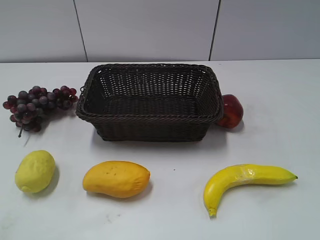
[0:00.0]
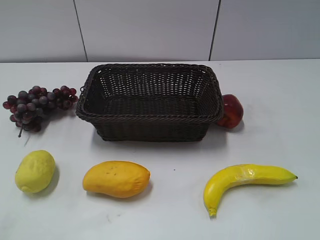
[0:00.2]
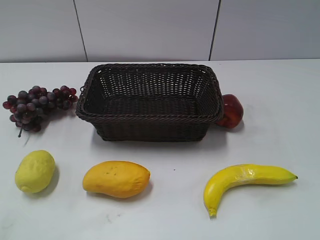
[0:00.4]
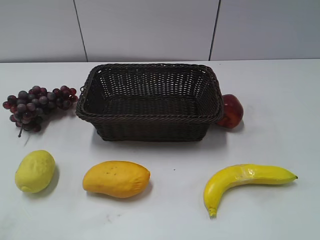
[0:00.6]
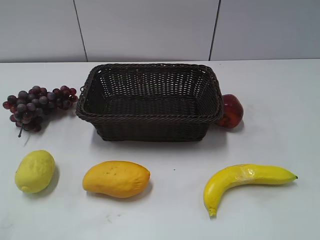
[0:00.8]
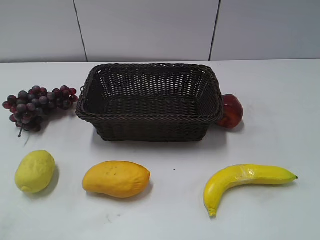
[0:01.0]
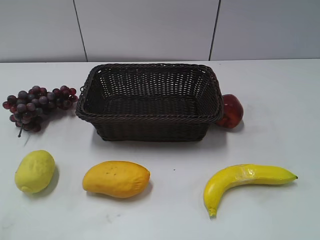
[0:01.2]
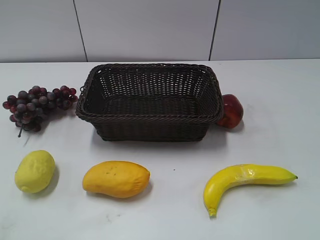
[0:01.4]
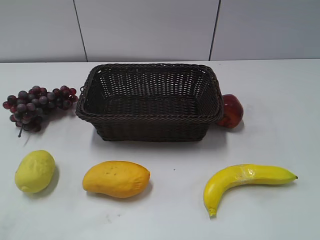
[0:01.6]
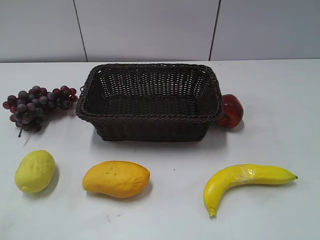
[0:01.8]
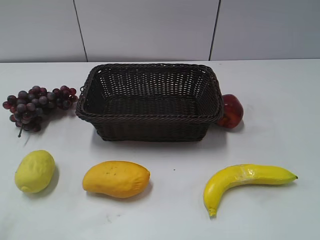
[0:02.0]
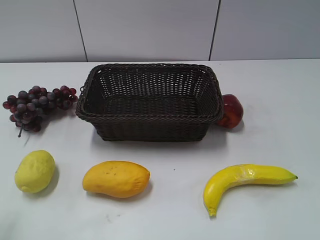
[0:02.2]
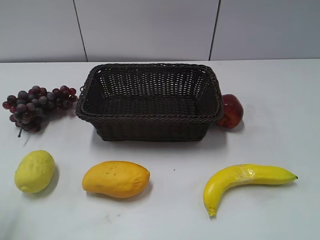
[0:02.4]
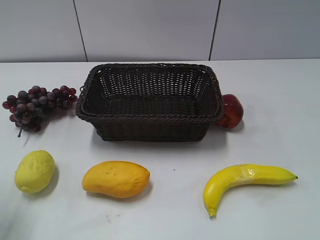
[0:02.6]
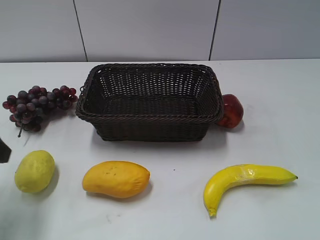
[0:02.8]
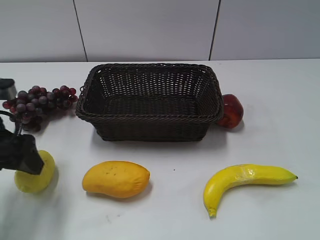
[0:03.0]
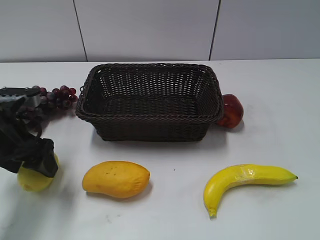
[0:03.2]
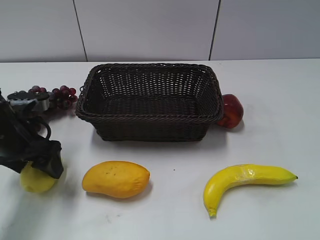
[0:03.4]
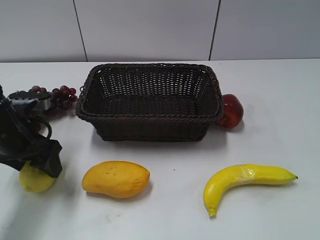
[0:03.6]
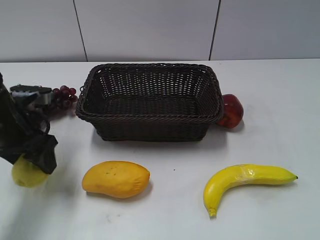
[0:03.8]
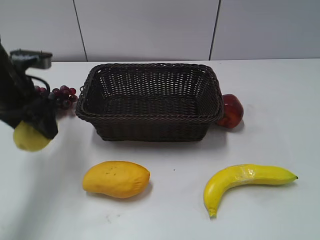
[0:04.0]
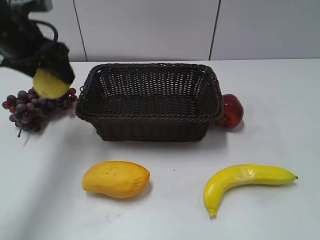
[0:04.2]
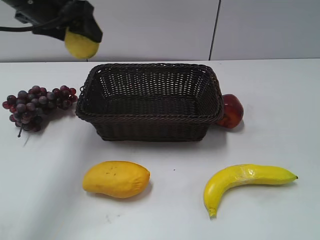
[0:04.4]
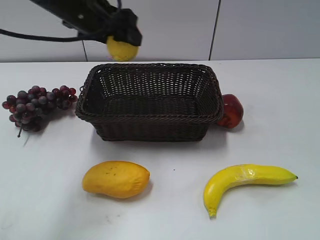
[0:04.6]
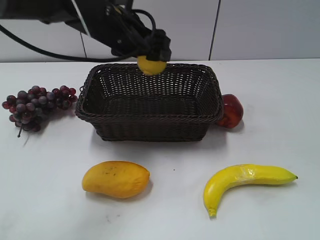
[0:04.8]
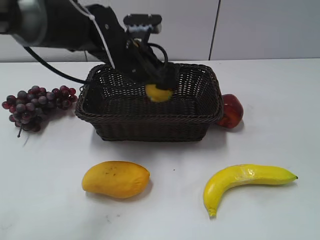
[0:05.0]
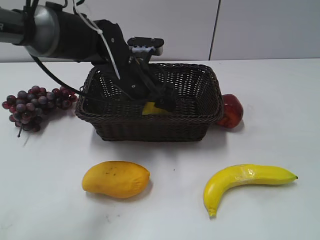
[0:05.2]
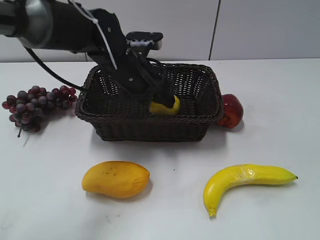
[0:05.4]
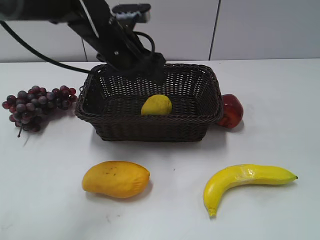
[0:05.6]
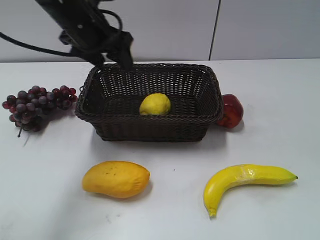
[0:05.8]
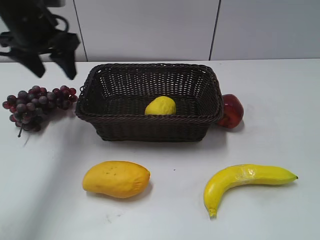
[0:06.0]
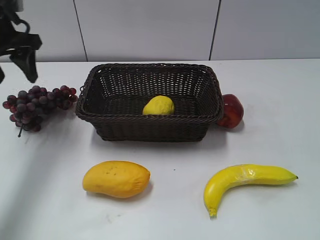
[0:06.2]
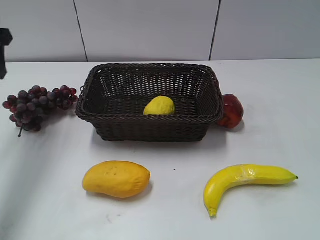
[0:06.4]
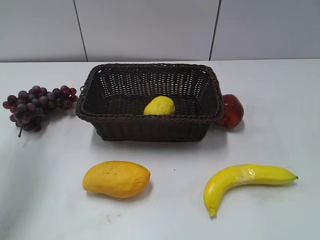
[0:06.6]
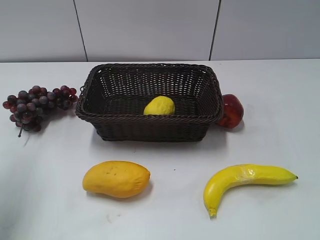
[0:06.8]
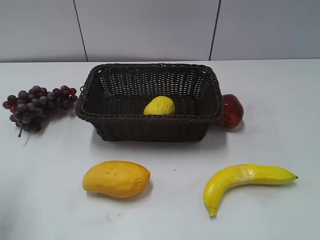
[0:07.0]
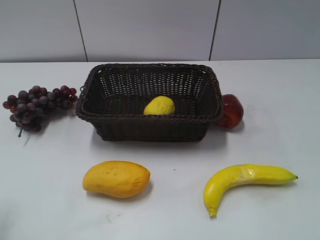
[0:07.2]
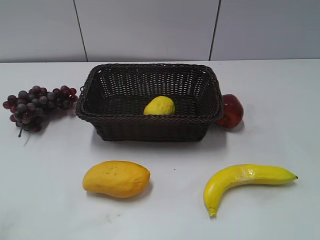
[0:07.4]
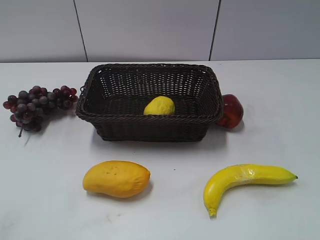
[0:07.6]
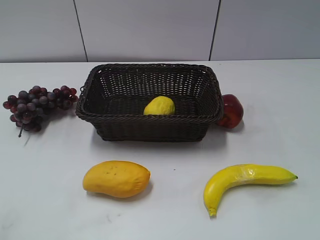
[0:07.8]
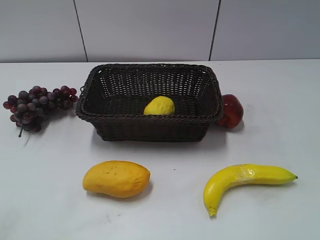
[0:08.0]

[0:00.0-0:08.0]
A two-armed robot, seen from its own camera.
Step, 0:02.8 to 0:03.6: Grasp the lemon with left gripper.
Step, 0:03.8 to 0:05.4: Place the lemon in the basket with left gripper.
0:01.6 to 0:03.2: The left gripper goes about 30 cm forward and downward, and opens up.
0:03.2 to 0:04.8: The left gripper moves to the right, forward and upward, some 25 cm, and closes up.
0:04.8 to 0:06.4: The left gripper is displaced to the left by some 20 cm, and opens and closes again.
0:06.4 to 0:08.0: The left gripper heads backward, covering approximately 35 cm.

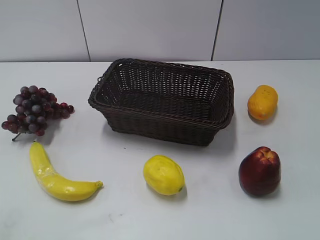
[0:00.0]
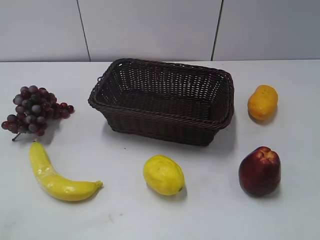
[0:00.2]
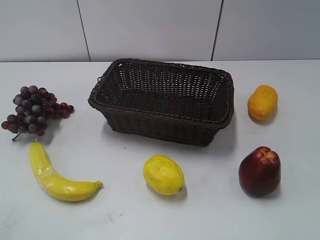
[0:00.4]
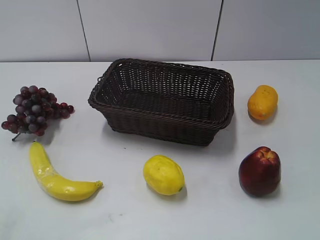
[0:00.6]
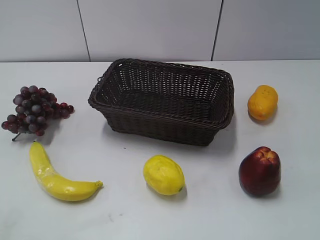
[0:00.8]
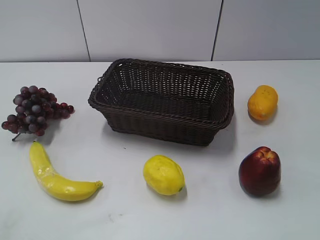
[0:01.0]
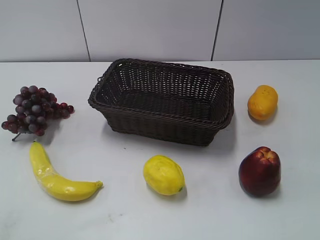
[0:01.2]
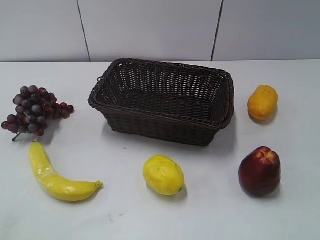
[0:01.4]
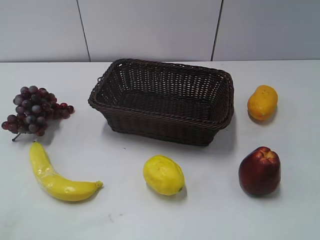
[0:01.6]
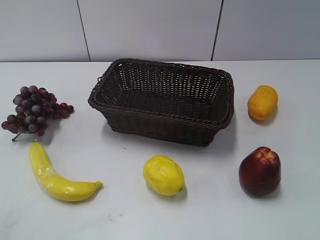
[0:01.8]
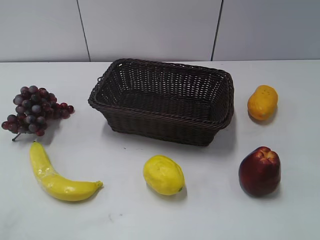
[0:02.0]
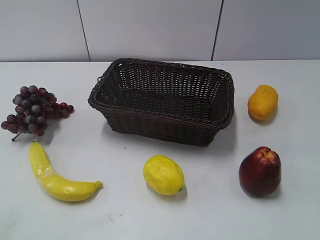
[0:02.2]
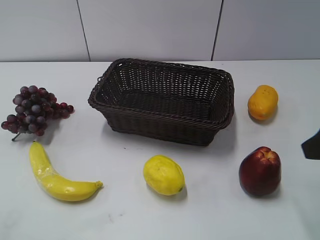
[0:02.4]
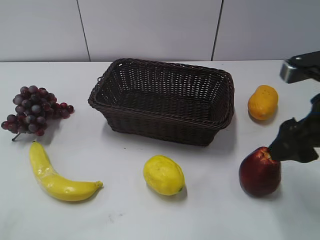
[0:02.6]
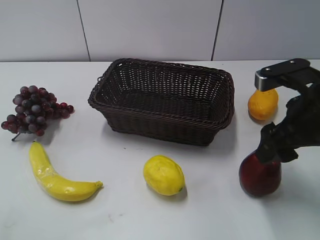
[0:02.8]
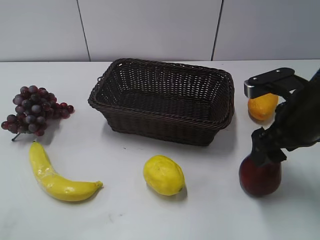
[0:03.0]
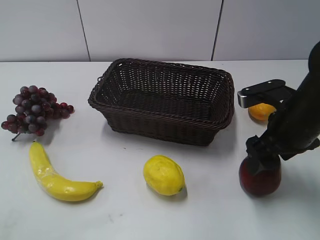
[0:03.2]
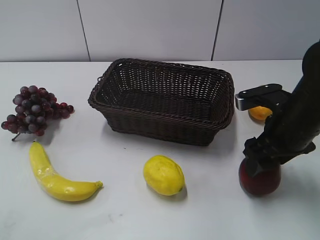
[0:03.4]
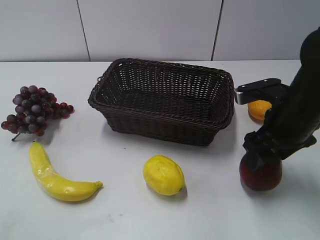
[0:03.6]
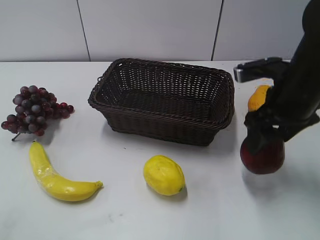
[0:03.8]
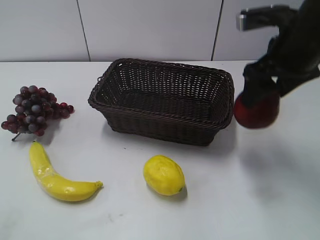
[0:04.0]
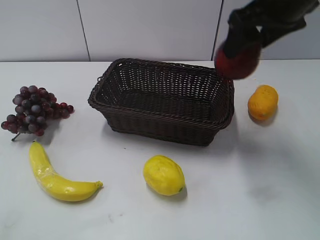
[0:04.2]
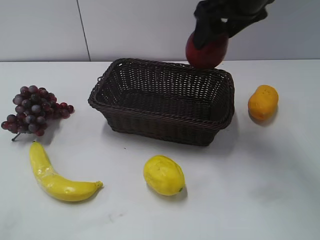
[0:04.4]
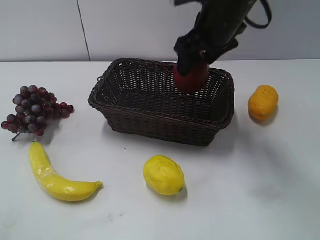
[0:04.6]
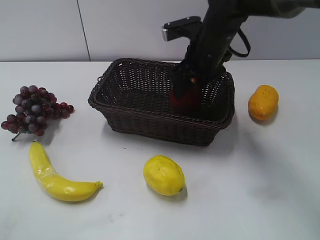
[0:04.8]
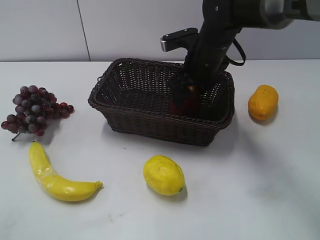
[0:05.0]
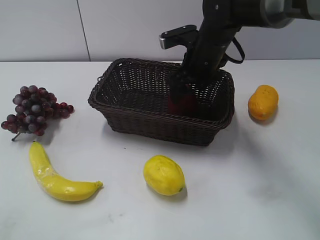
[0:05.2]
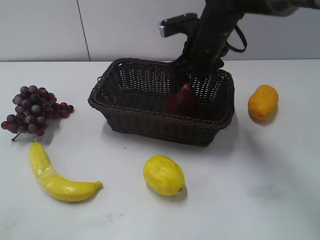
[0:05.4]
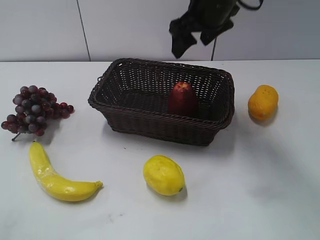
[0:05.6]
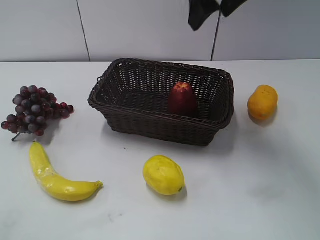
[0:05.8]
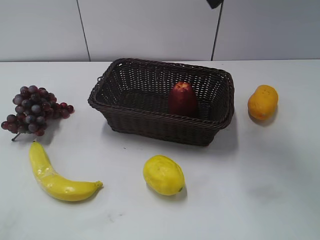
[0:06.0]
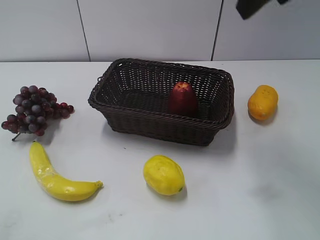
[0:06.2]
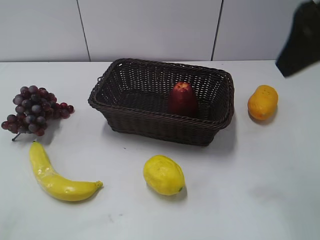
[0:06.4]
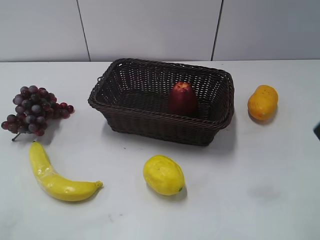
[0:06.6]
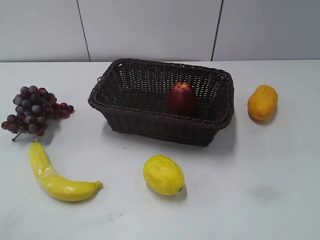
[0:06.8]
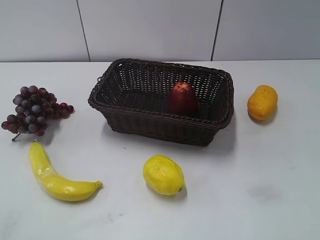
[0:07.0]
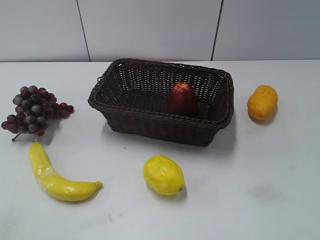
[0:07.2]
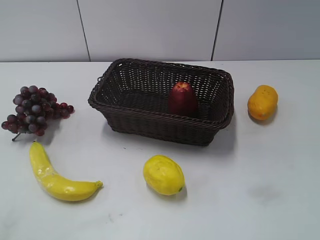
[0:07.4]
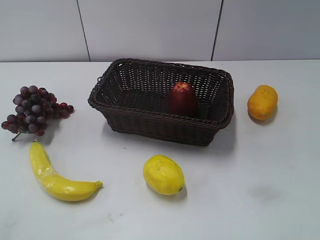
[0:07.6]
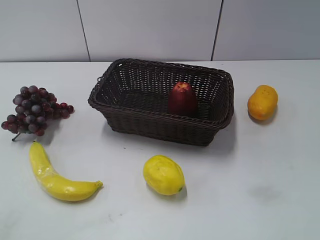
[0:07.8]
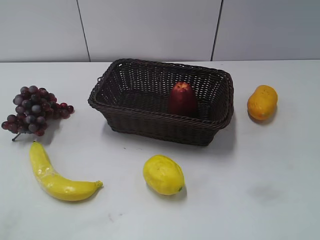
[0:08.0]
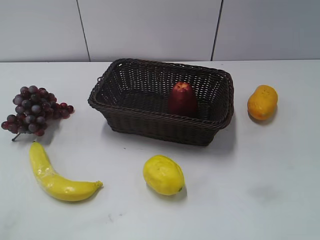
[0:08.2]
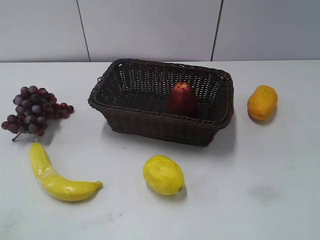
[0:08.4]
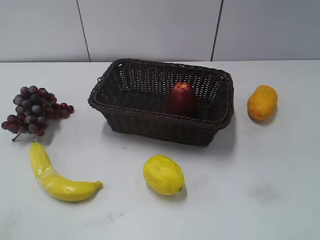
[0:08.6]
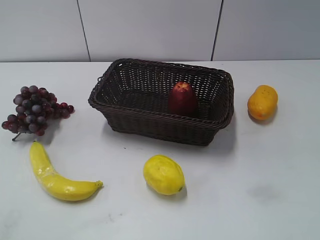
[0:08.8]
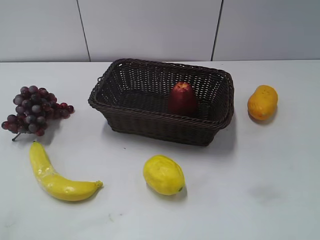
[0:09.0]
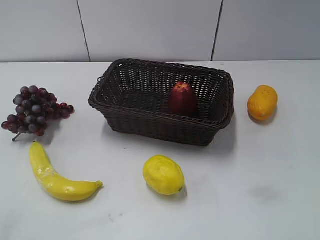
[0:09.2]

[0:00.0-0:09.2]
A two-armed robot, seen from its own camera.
Step, 0:02.4 to 0:03.2: Grasp the apple with right gripper.
Step, 0:03.6 to 0:05.0: Place the apple in the basket with right gripper.
0:01.6 to 0:03.0: The right gripper shifts roughly 25 cm forward.
0:03.0 to 0:04.6: The right gripper moves forward, to the left and upward, about 20 cm.
0:04.6 to 0:06.2: The right gripper heads upward and backward, covering some 20 cm.
0:06.2 to 0:07.6: The right gripper heads backward, downward and to the right, covering approximately 30 cm.

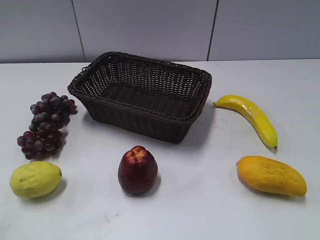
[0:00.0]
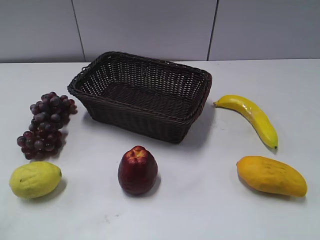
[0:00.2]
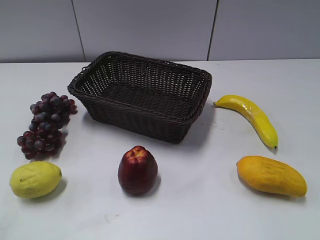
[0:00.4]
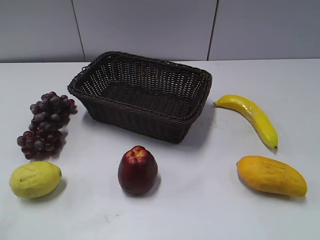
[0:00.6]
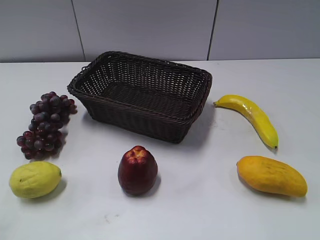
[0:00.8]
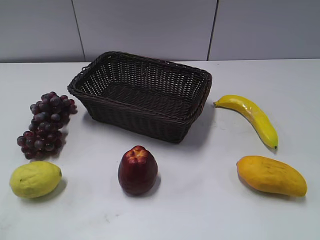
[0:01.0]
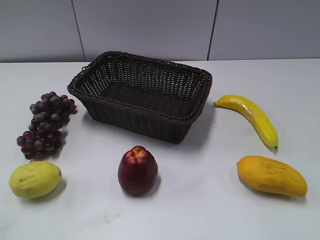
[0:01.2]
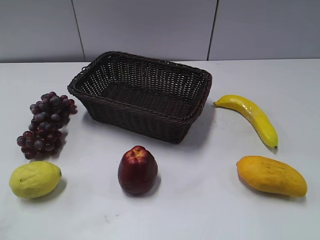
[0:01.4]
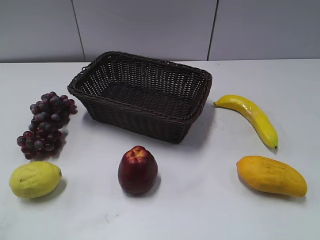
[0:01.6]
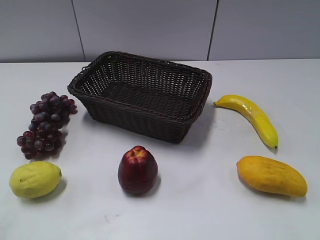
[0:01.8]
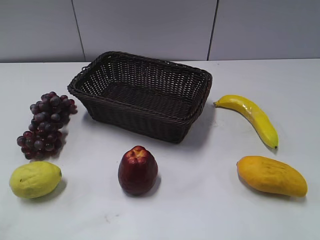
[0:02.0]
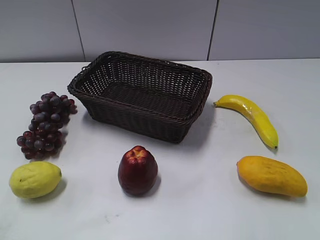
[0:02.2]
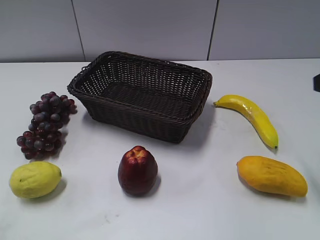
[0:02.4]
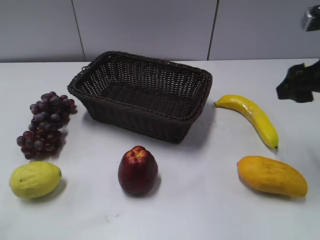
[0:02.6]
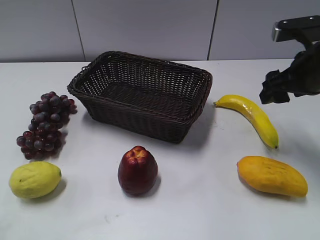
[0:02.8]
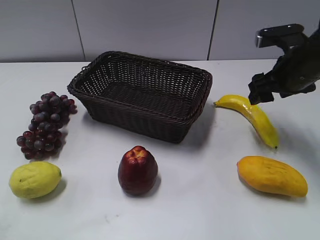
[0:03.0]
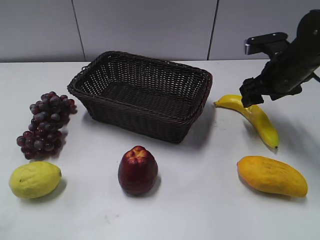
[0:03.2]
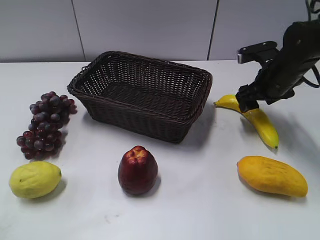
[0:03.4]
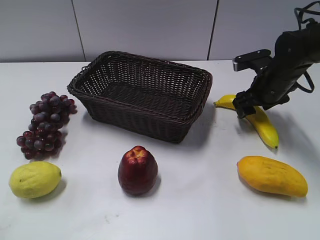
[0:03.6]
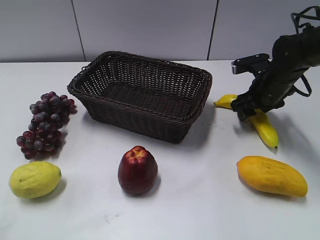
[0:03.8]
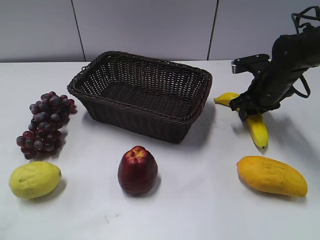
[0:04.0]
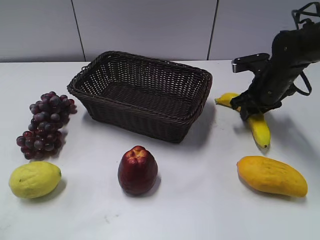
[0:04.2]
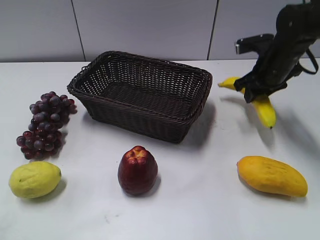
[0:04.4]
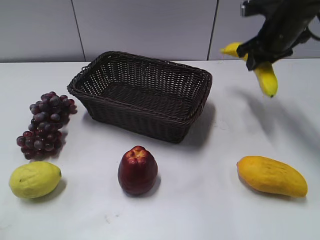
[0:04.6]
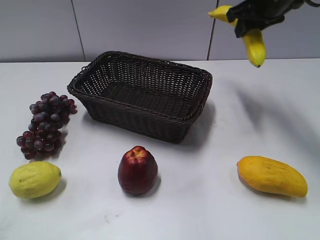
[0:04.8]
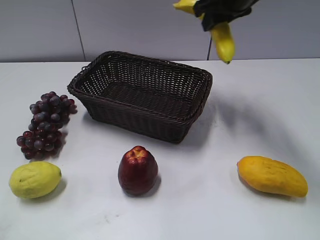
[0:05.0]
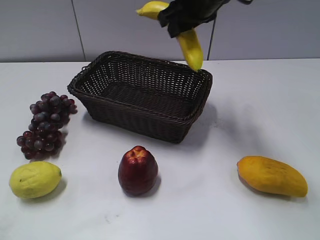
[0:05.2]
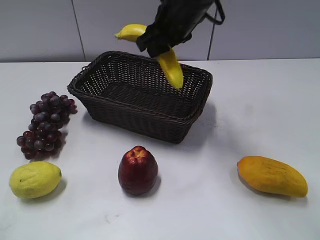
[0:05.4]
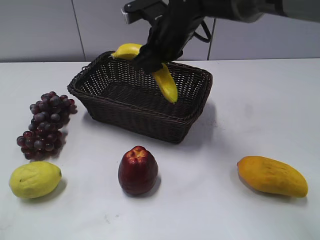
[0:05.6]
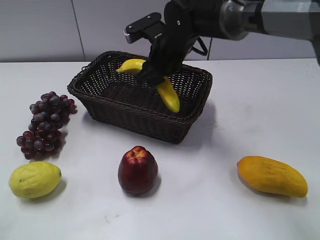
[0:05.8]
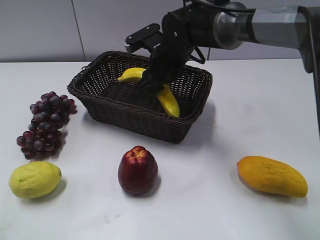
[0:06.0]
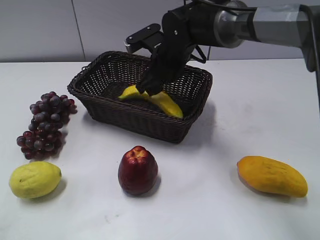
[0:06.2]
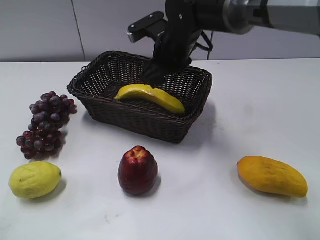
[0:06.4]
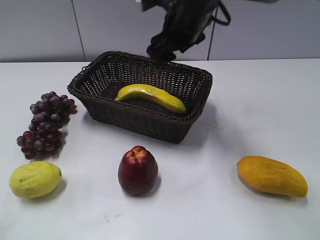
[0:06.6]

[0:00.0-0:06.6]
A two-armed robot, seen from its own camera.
Step, 0:02.4 to 0:04.2: Grasp the banana with right gripper.
Step, 0:04.4 to 0:06.2: Place the banana in the basket with right gripper.
0:01.6 to 0:03.2: The right gripper goes some 35 cm forward.
0:03.2 to 0:05.0: The right gripper shifts some 15 cm upward and to the left, and closes.
0:05.0 to 0:06.6: The right gripper moves to the left, approximately 5 cm, moves roughly 15 cm downward and comes back, and opens.
